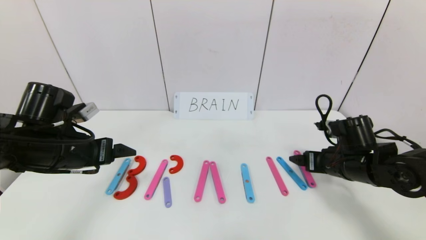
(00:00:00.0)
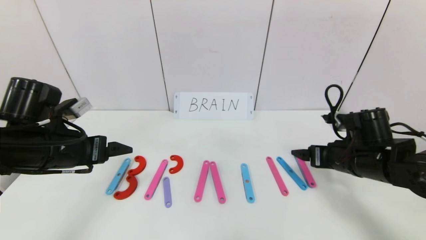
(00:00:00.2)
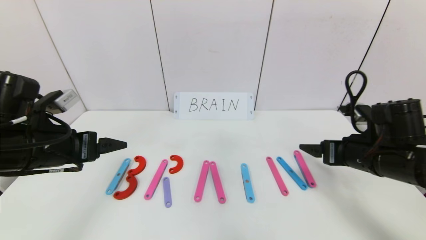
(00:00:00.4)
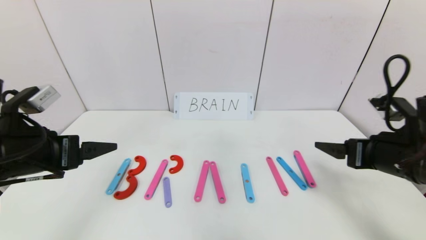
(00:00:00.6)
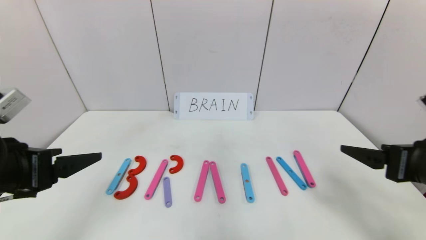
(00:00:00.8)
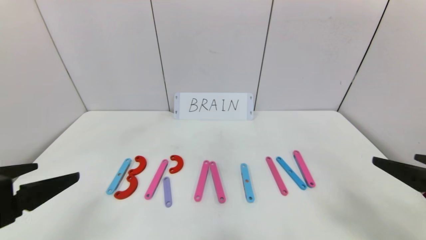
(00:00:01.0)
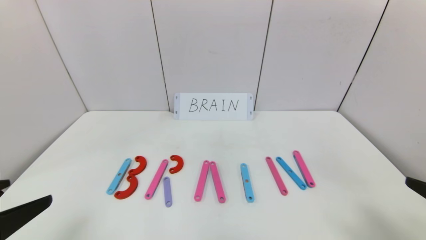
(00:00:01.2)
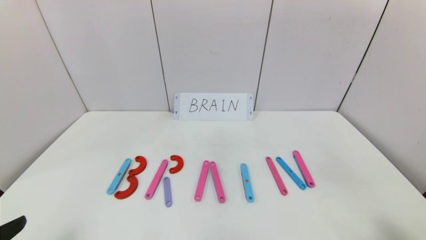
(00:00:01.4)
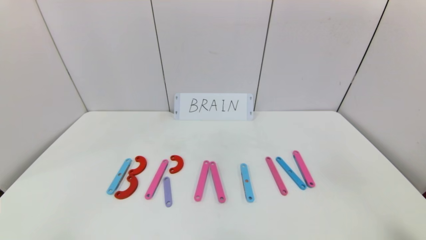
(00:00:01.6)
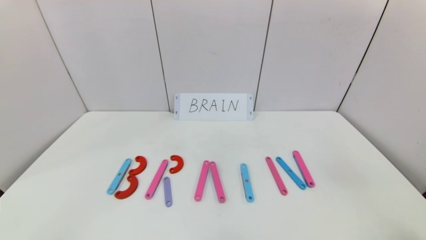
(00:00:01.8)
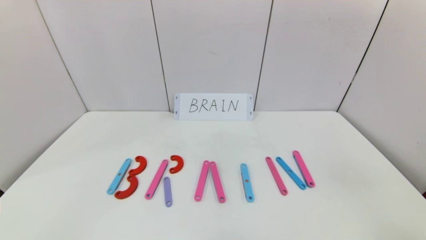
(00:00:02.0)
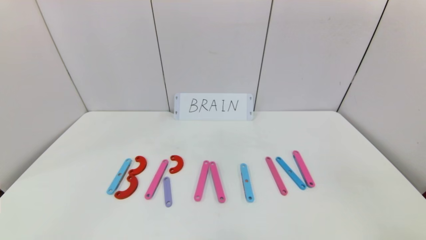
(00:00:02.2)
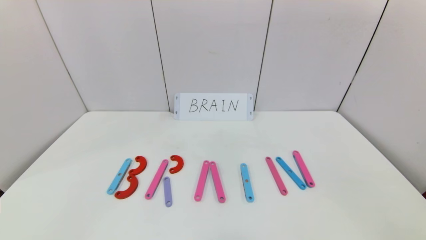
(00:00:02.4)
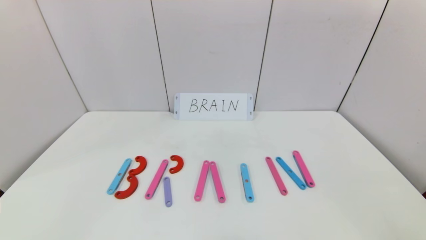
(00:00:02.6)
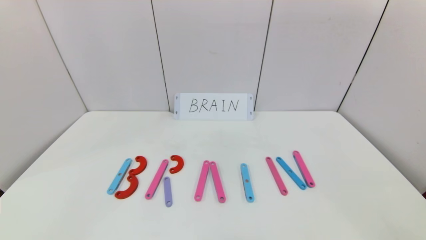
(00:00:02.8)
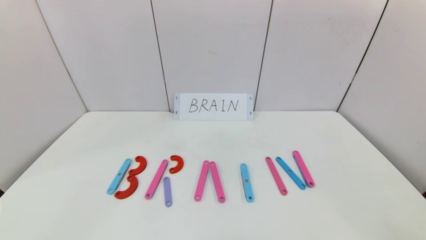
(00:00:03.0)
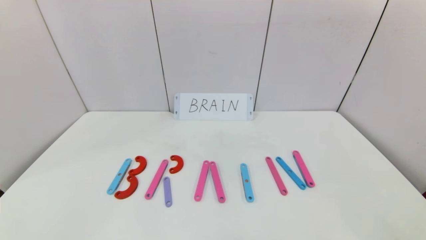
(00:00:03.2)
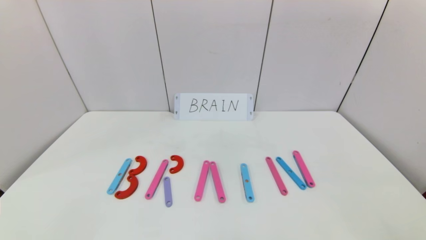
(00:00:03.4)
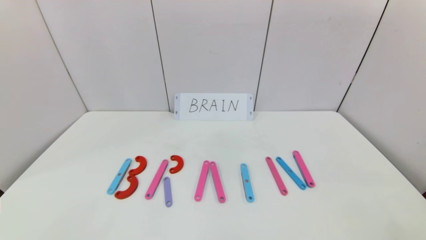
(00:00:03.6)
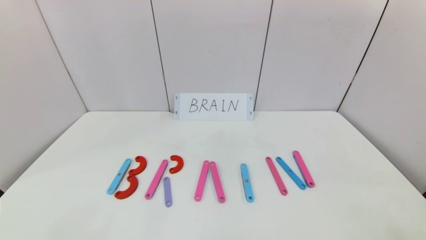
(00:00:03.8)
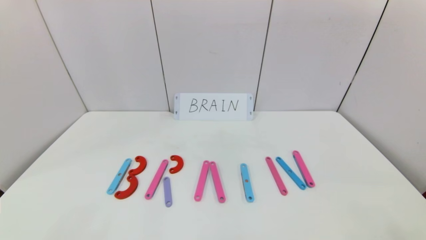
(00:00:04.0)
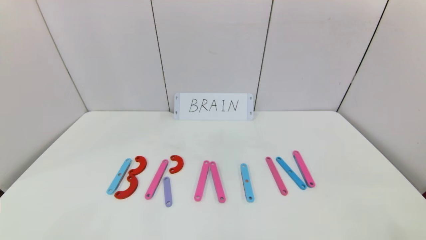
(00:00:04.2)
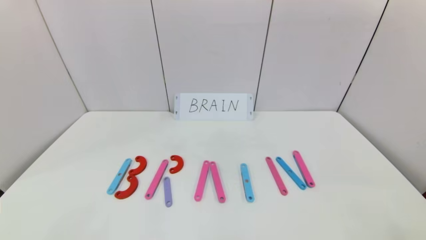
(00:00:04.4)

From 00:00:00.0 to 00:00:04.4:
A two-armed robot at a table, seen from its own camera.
Task of the whole recording: rearrange the word baai as brain.
From 00:00:00.0 to 00:00:01.4: The right gripper goes some 30 cm backward and upward, while the left gripper travels backward by about 25 cm.
